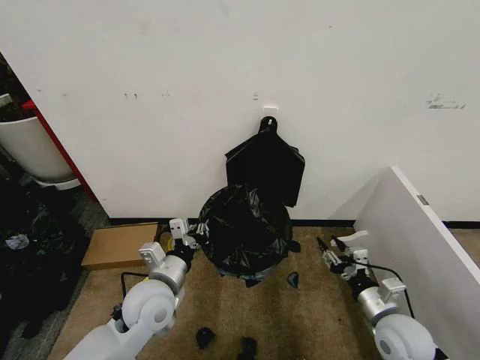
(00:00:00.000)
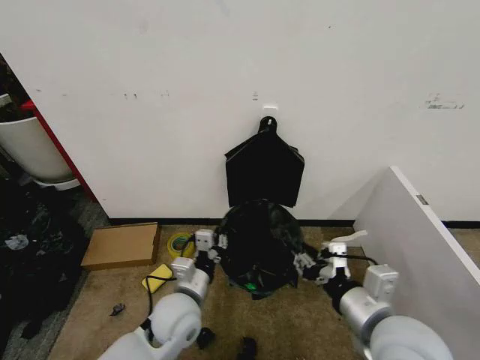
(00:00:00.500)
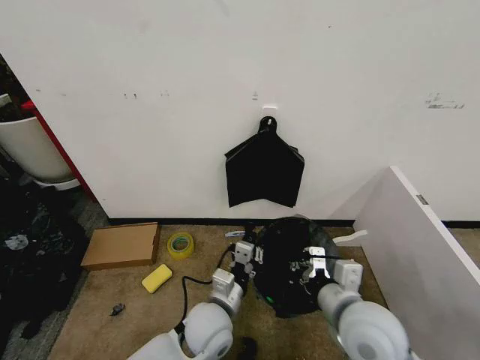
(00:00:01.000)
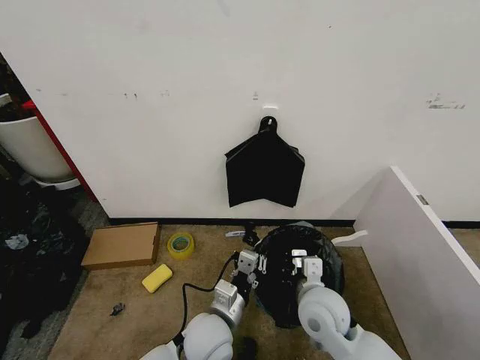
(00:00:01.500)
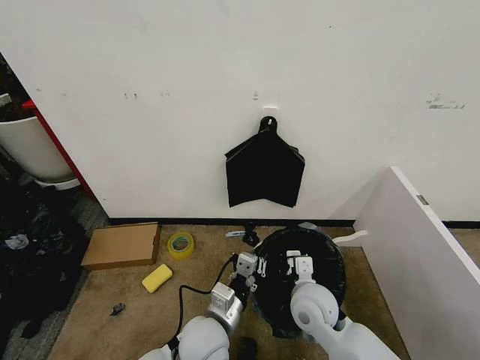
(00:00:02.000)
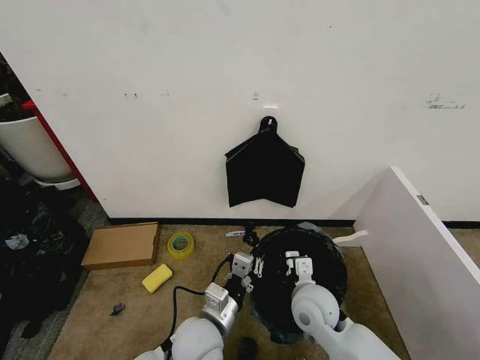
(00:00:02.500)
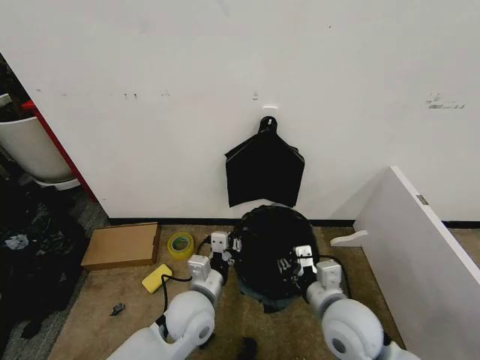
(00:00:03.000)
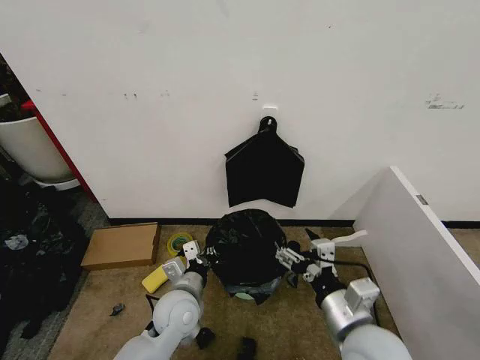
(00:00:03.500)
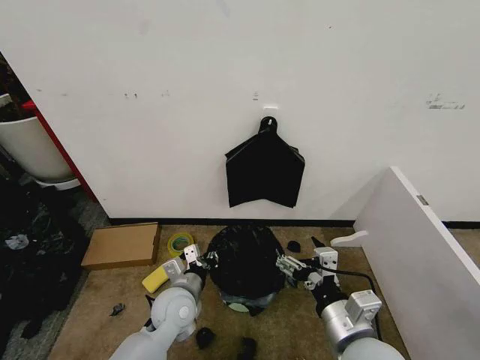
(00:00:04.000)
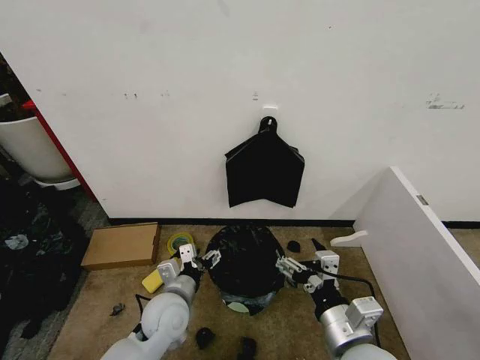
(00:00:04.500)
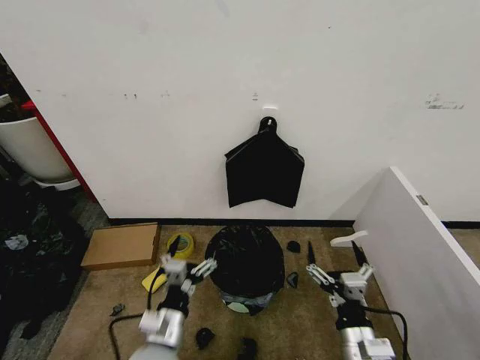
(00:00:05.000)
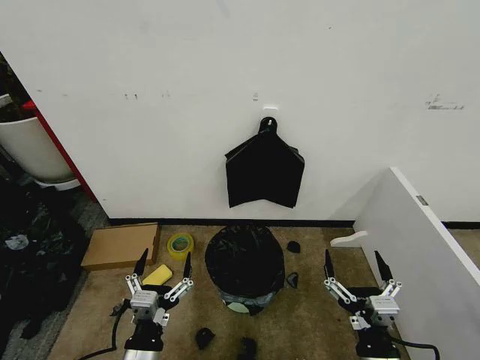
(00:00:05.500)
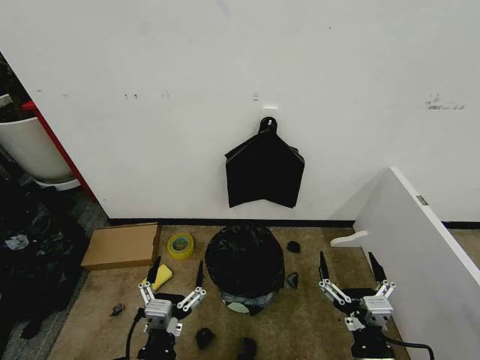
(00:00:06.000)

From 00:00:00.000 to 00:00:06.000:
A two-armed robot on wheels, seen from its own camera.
Task of the whole recording: Place the garbage bag over the trash bin.
From 00:00:00.000 to 00:00:02.000: The left gripper moves to the right, backward and downward, roughly 15 cm; the right gripper travels to the left by about 20 cm, and closes up.
From 00:00:02.000 to 00:00:04.000: The right gripper heads backward and upward, covering some 15 cm, and opens up; the left gripper is displaced to the left and forward by some 10 cm.
From 00:00:04.000 to 00:00:06.000: The right gripper goes roughly 10 cm downward and backward, while the left gripper travels backward by roughly 20 cm, and opens its fingers.
